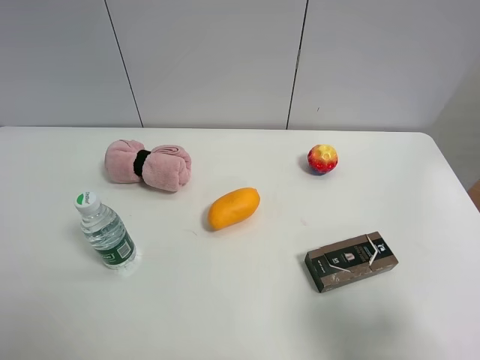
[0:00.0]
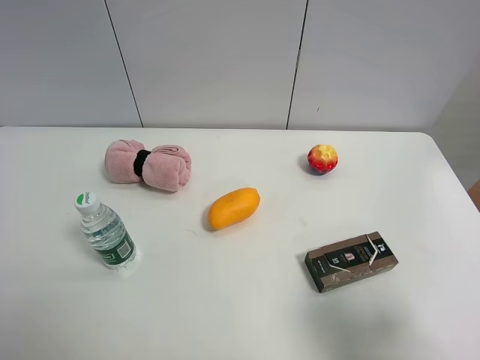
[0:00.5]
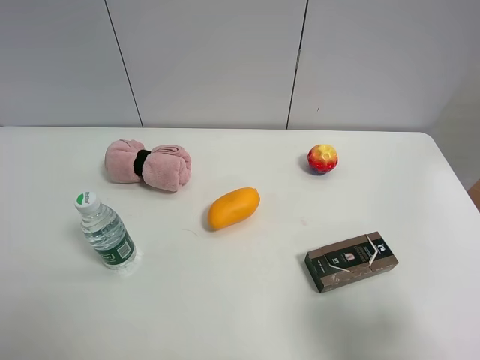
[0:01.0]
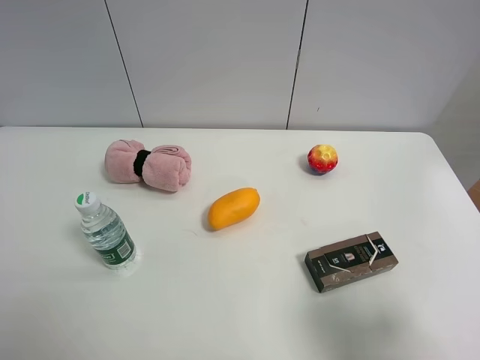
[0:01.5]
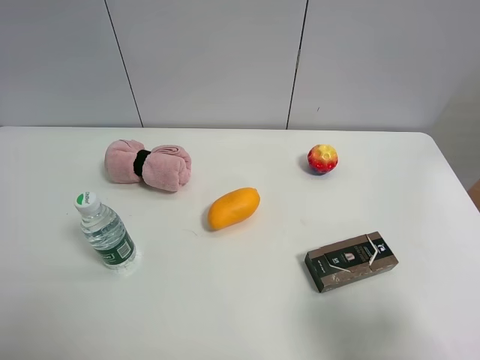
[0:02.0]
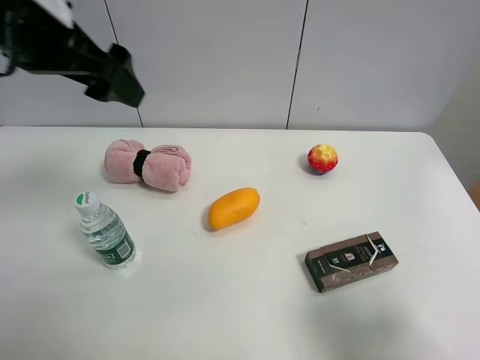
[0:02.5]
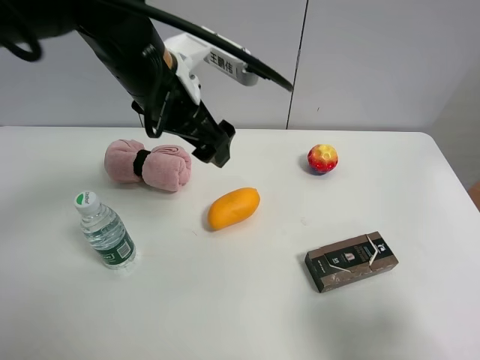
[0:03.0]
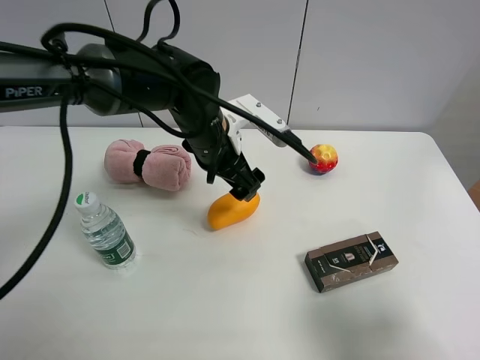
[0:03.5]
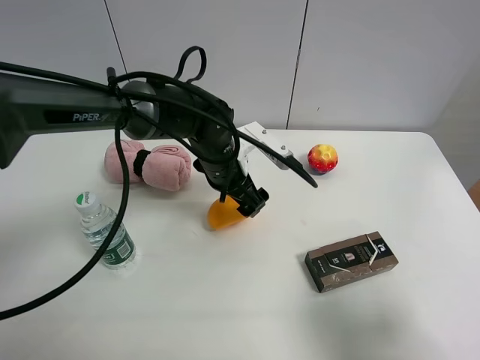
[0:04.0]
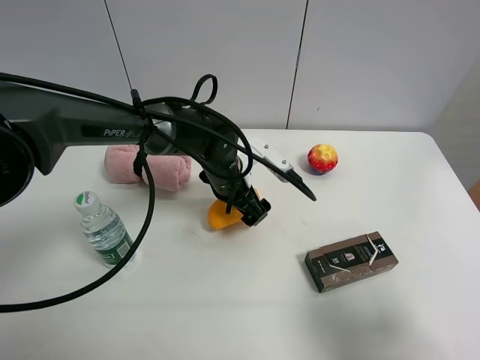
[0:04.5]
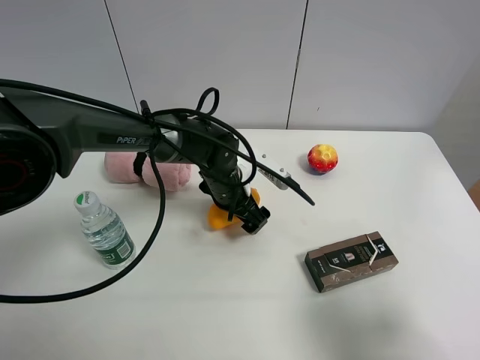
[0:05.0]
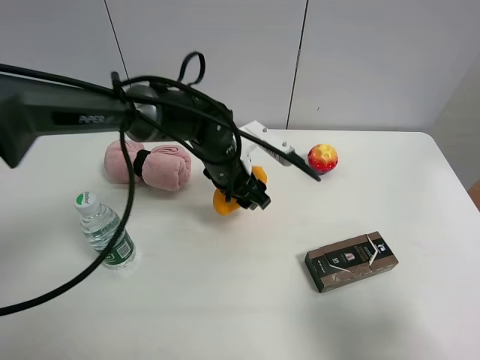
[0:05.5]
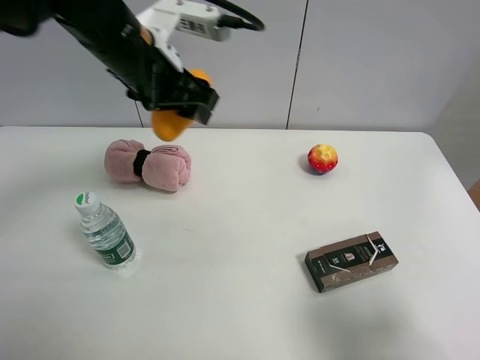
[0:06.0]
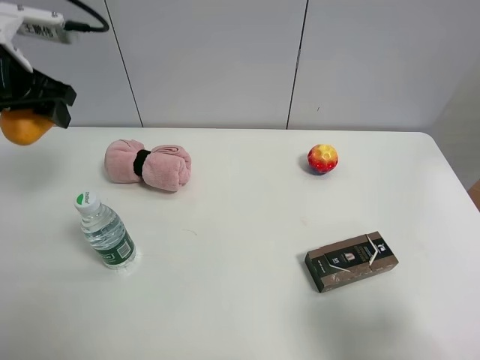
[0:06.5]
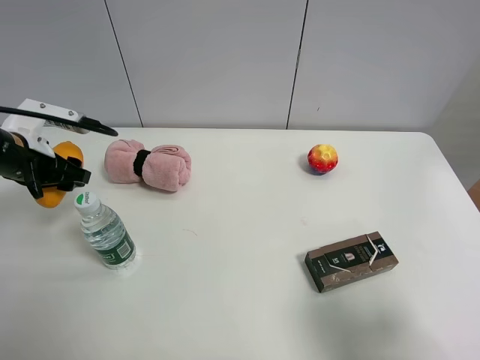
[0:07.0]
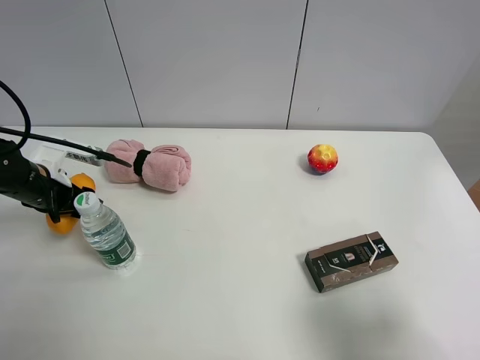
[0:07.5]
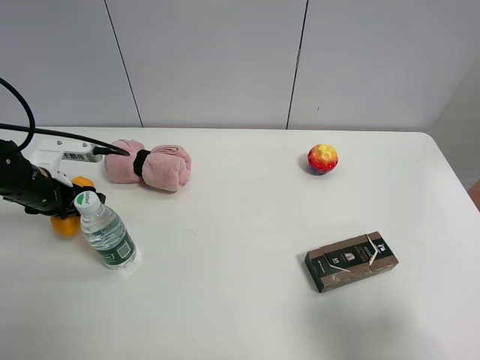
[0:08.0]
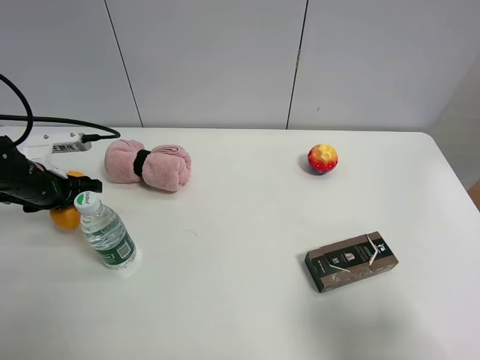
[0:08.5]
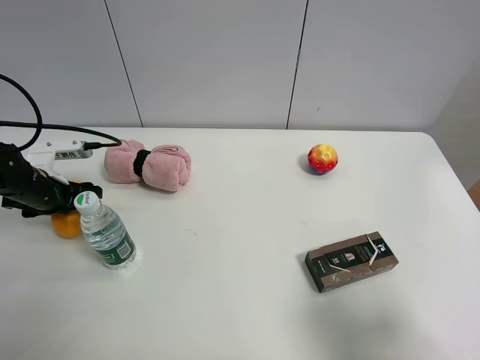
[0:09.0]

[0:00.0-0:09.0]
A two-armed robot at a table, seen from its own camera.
Task of the whole recording: the gripper move the object.
Step, 0:00.0 to 0:05.0: Grasp the mango with the left gripper.
0:02.0 to 0:04.5: The left gripper travels downward, to the right and forward by approximately 50 cm.
0:04.5 to 0:07.0: The left gripper is displaced to the left by some 30 cm, and closes.
0:07.0 to 0:09.0: The left gripper shifts roughly 10 cm downward, and opens up.

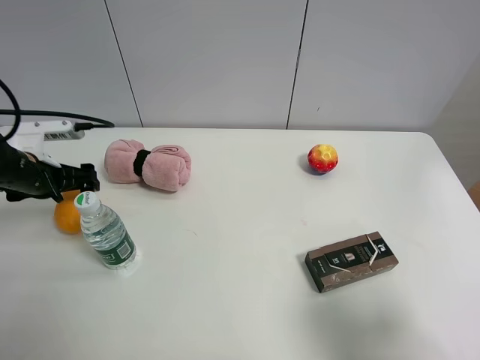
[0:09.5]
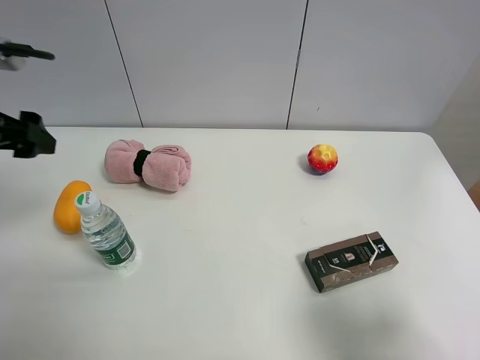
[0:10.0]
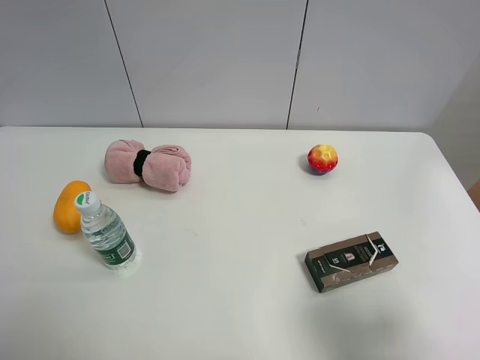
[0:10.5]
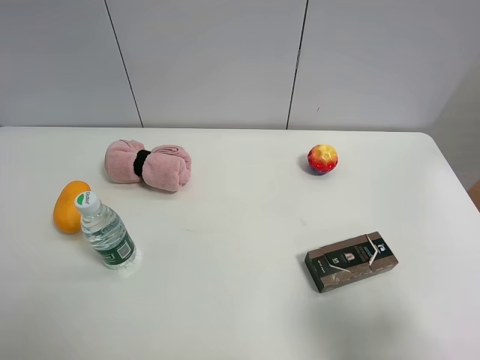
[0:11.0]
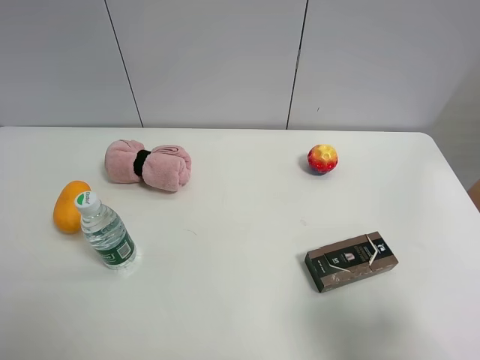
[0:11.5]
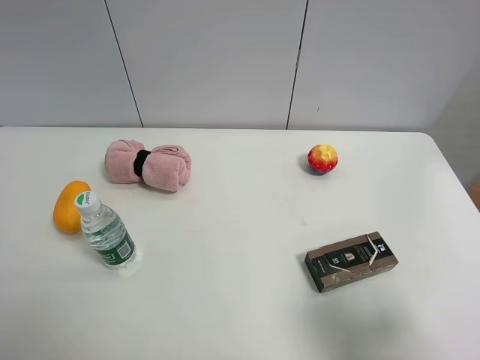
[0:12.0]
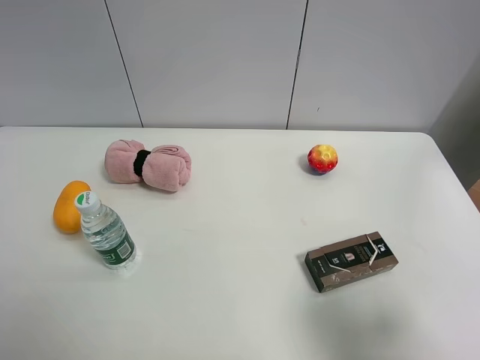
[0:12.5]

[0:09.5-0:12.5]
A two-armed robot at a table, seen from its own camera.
Task of the whole recording: the gripper move the object.
0:09.5 to 0:11.0: The left gripper goes approximately 35 cm backward and upward.
